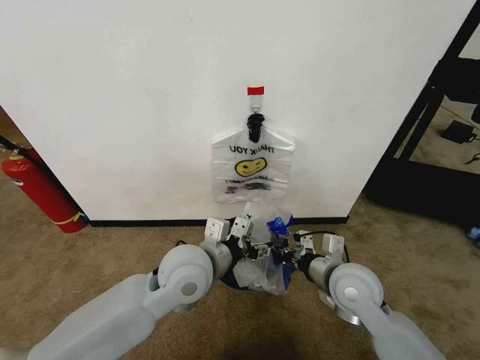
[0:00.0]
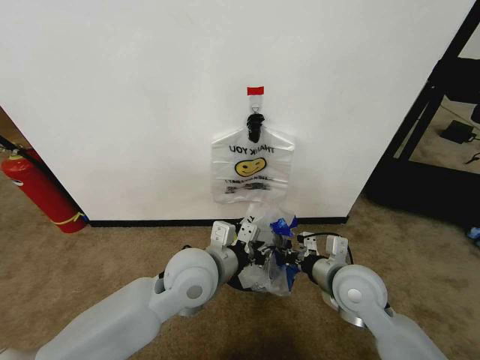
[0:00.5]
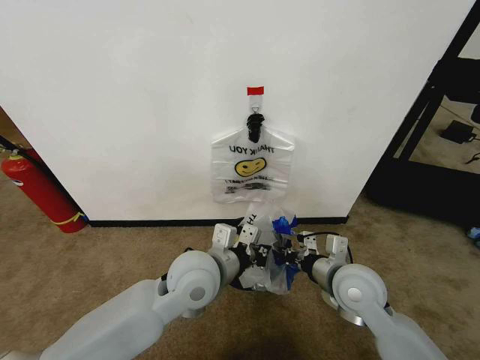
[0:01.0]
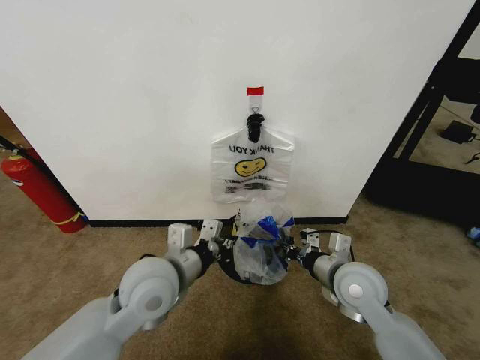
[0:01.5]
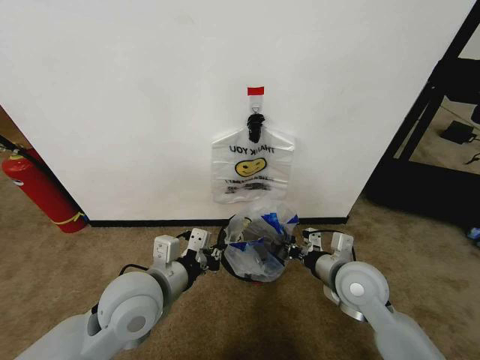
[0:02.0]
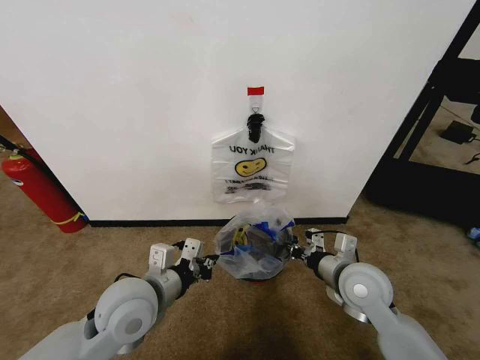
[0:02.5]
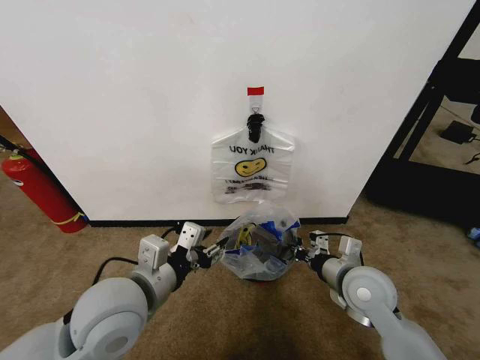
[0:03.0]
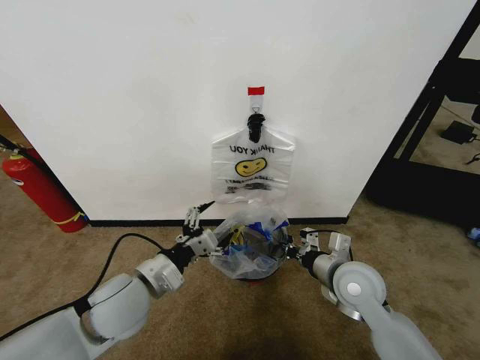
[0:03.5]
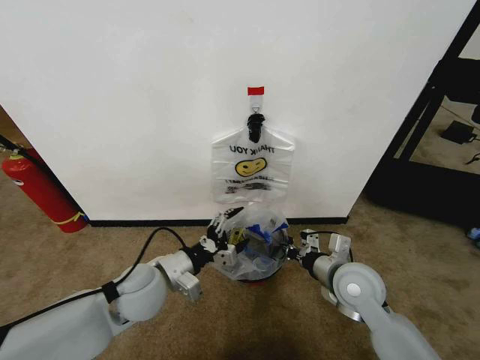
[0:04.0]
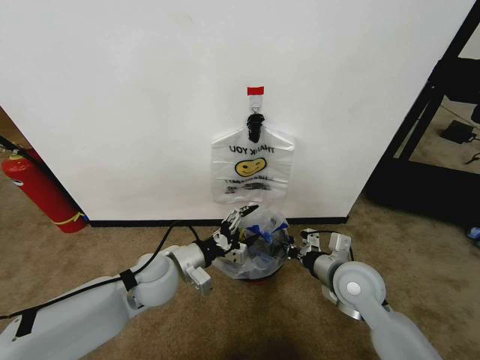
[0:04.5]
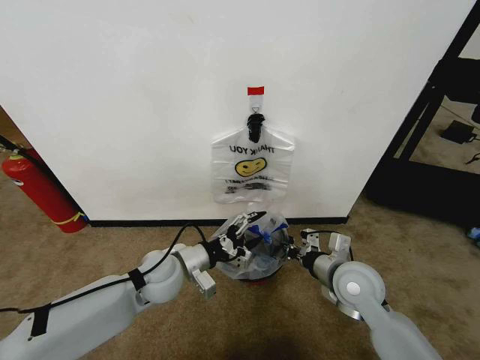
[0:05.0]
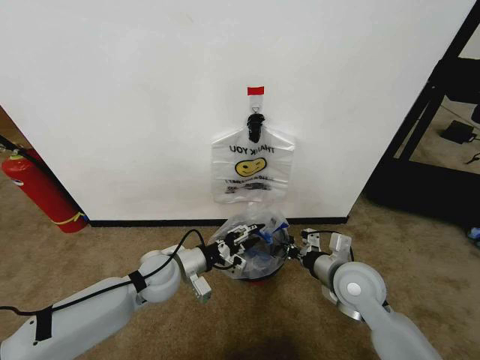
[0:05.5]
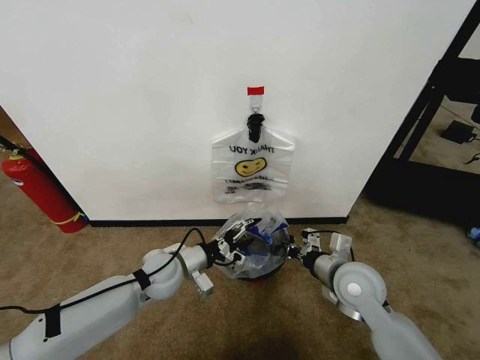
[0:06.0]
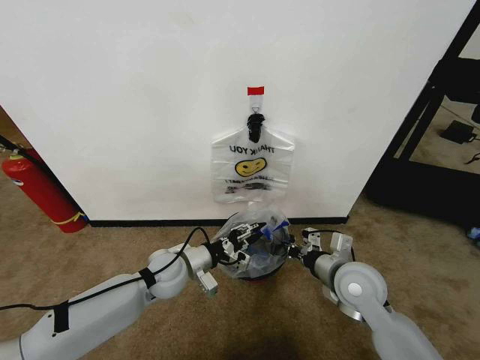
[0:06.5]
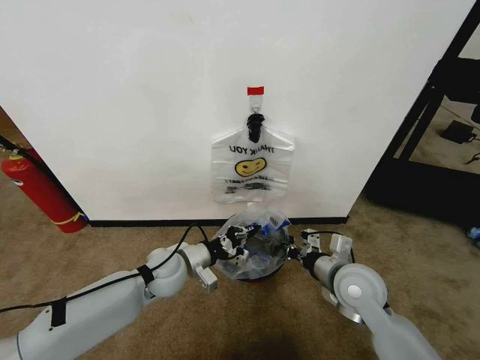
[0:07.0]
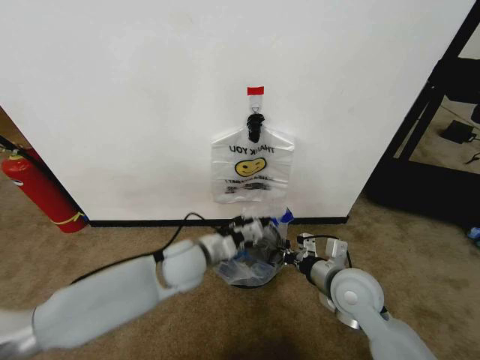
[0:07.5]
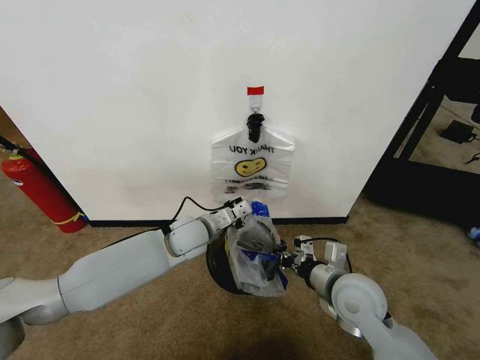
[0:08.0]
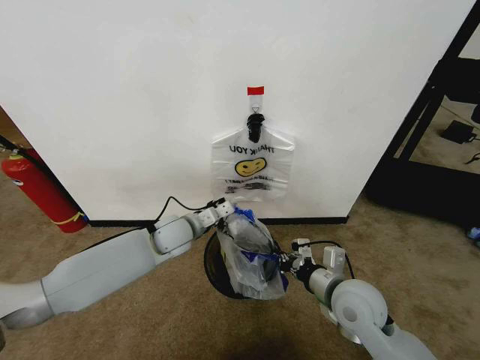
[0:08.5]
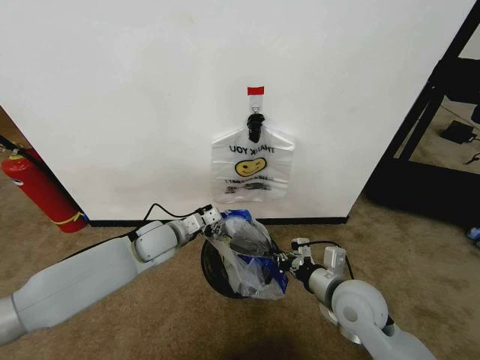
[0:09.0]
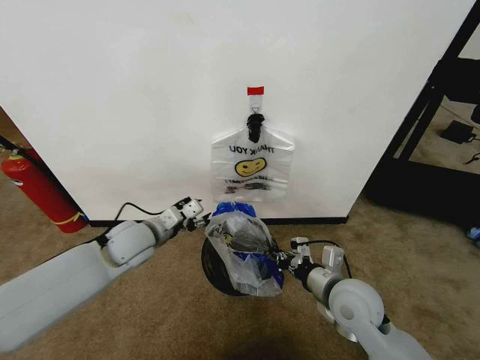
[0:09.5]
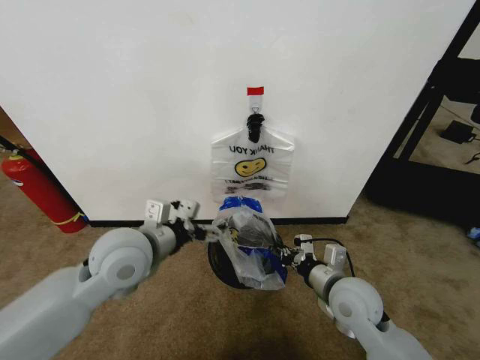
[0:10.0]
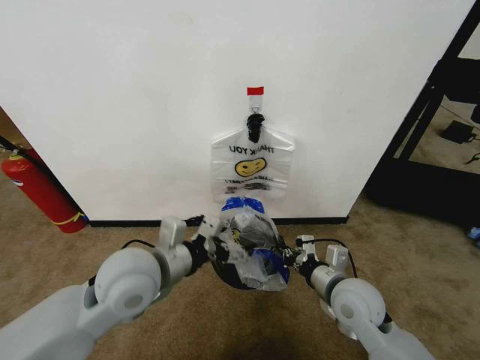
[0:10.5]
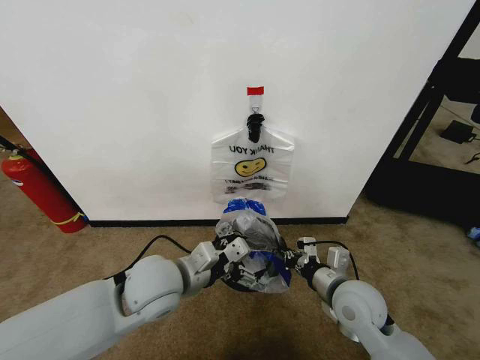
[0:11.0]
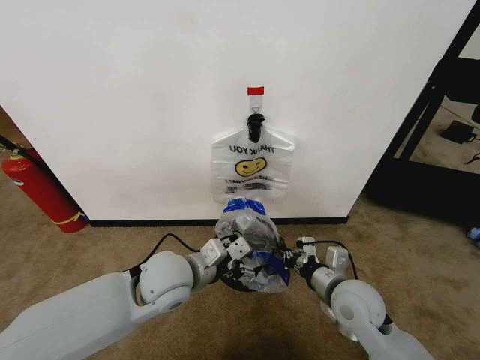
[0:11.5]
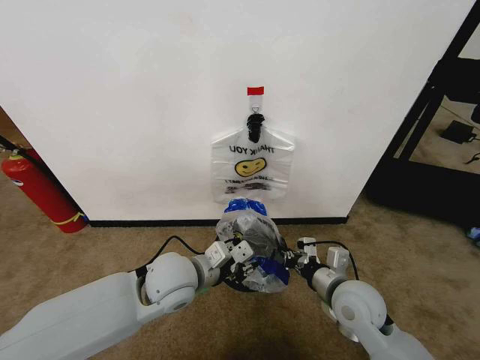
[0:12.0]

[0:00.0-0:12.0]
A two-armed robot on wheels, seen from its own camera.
Task of the whole recording: Pick up the garbage bag from the wall and place it over the trash bin.
0:00.0 to 0:02.0: The left gripper moves to the left and backward, about 10 cm, and closes its fingers.
0:02.0 to 0:04.0: The left gripper is displaced downward by approximately 5 cm, and opens up.
0:04.0 to 0:06.0: The left gripper shifts roughly 5 cm forward.
0:06.0 to 0:08.0: The left gripper is displaced forward and to the right by approximately 10 cm, and closes.
0:08.0 to 0:10.0: The left gripper is displaced backward, upward and to the left by roughly 20 cm, and opens up.
0:10.0 to 0:12.0: The left gripper goes some 10 cm downward and to the right, and closes its fingers.

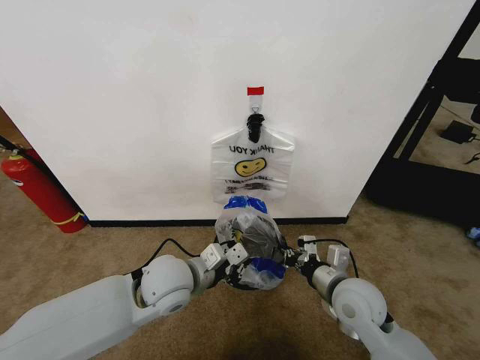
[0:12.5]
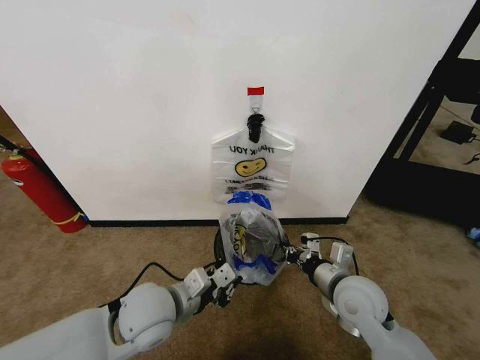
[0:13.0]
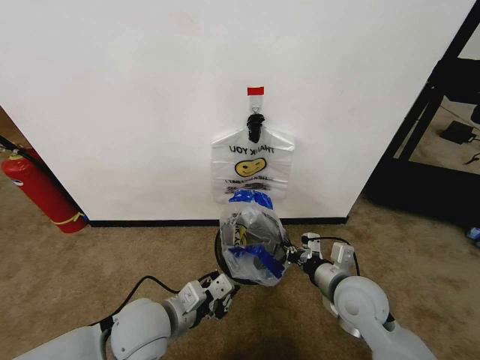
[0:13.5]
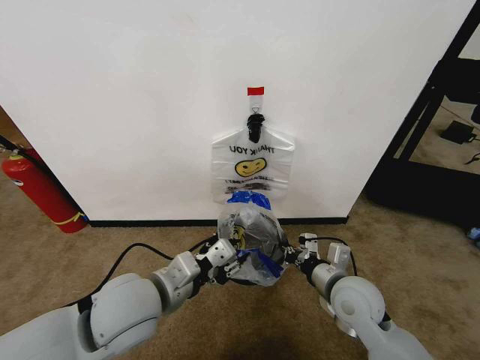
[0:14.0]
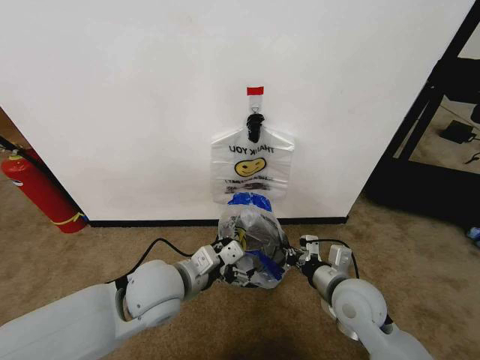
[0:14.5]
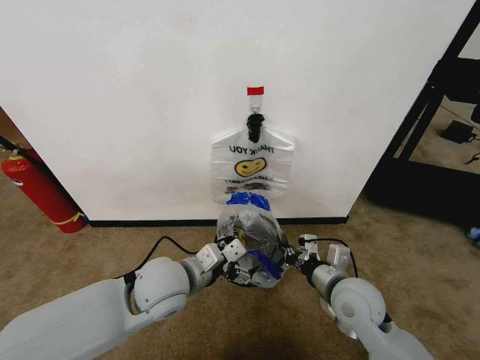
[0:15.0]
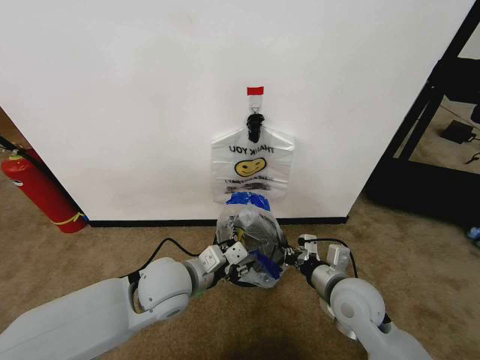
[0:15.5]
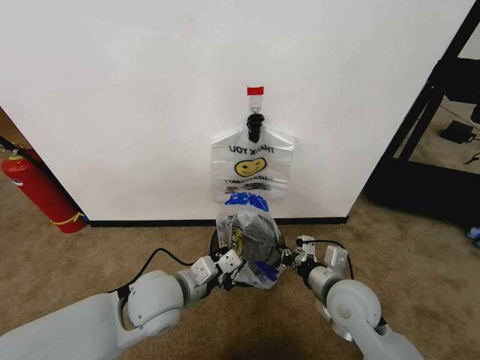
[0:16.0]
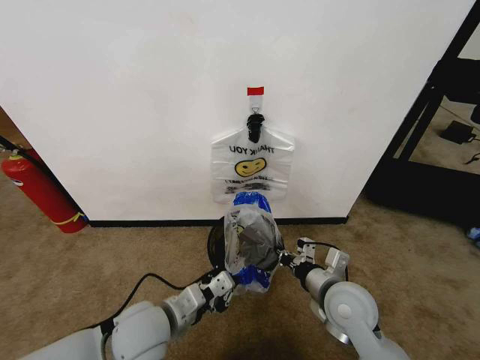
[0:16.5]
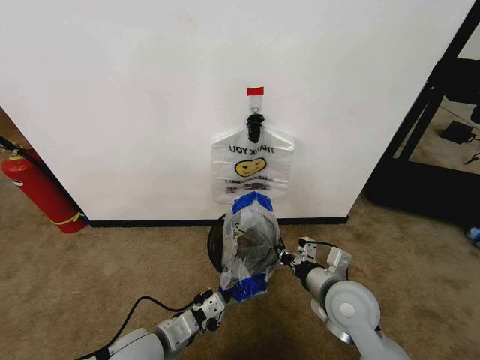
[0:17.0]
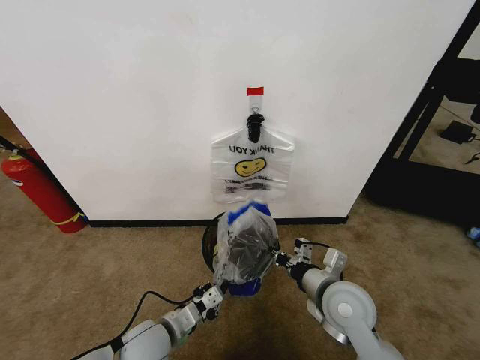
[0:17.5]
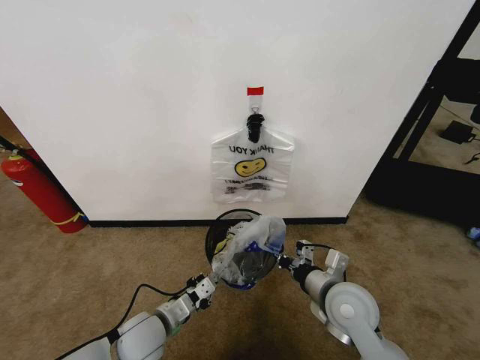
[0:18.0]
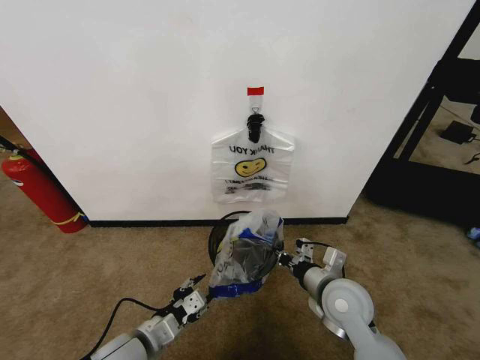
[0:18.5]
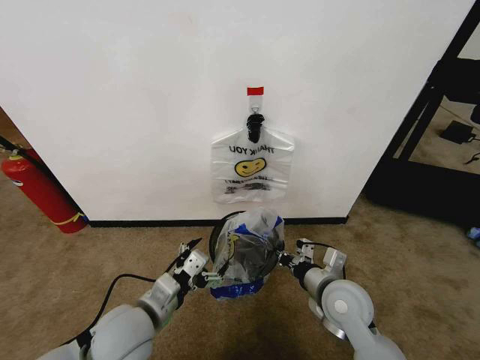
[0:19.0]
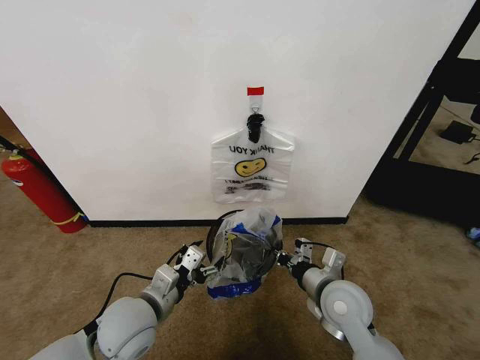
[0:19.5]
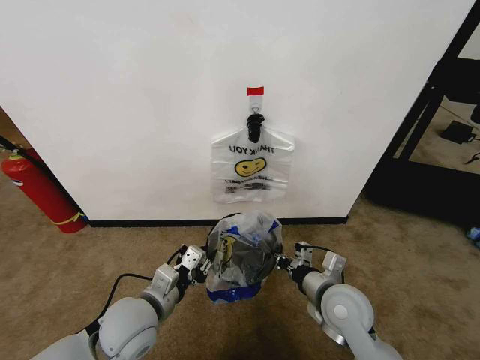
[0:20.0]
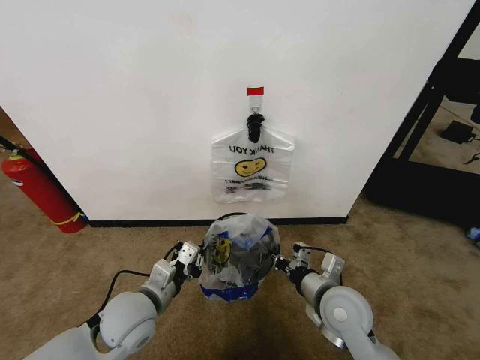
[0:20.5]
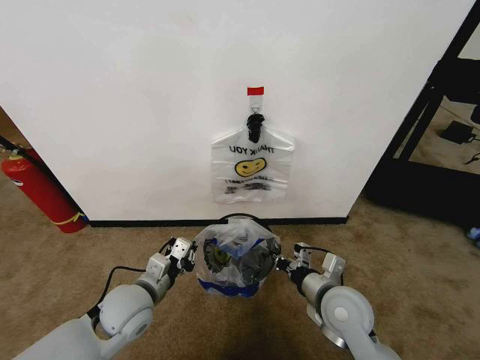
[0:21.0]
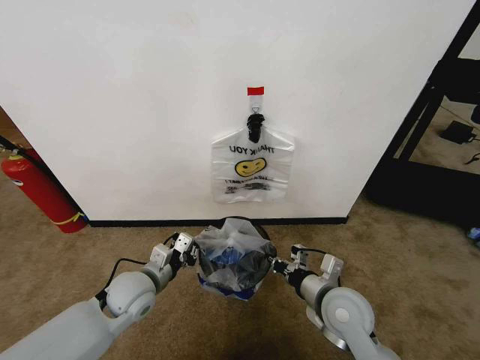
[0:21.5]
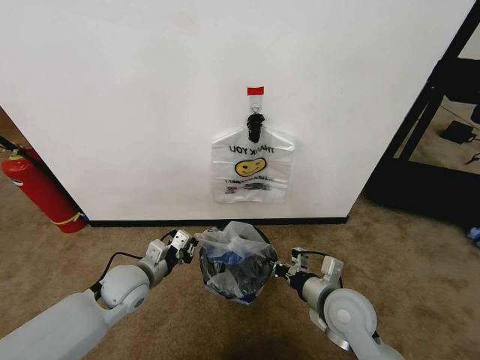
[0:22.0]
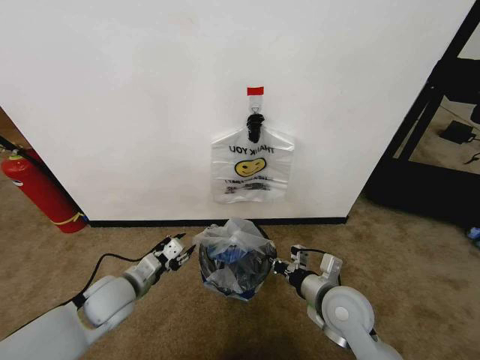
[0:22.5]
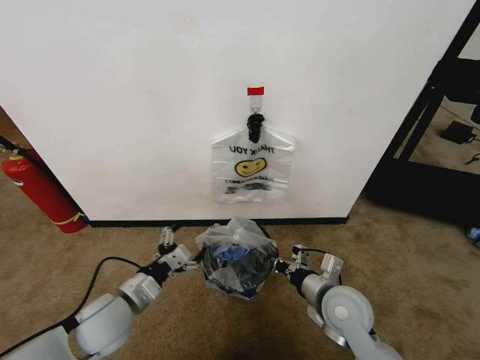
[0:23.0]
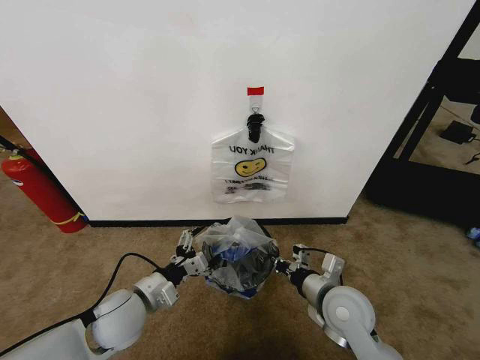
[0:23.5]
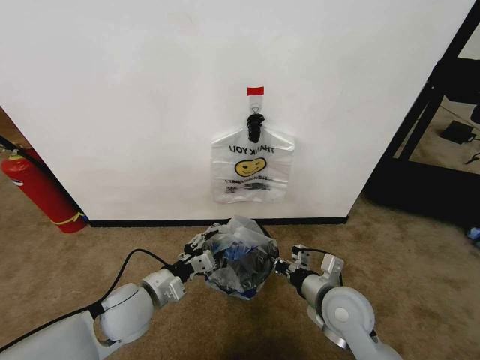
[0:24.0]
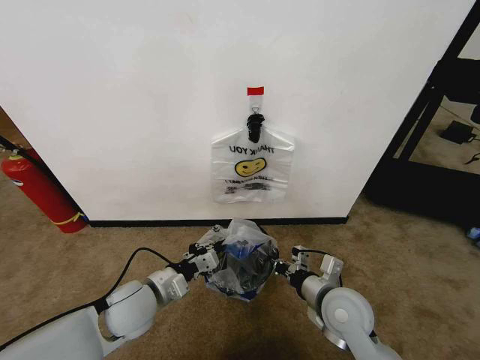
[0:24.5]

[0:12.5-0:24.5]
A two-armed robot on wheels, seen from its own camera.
Task of the whole recording: Pick up the garbage bag from the wall and place it over the trash bin.
0:12.5 to 0:14.5: The left gripper opens up.
0:14.5 to 0:16.5: The left gripper goes approximately 10 cm downward and backward, and closes its fingers.
0:16.5 to 0:18.5: The left gripper goes about 5 cm downward, and opens its fingers.
0:18.5 to 0:20.5: The left gripper heads forward and upward, covering some 10 cm, and closes.
0:20.5 to 0:22.5: The left gripper goes roughly 5 cm to the left, and opens up.
0:22.5 to 0:24.5: The left gripper shifts approximately 5 cm to the right, and closes up.

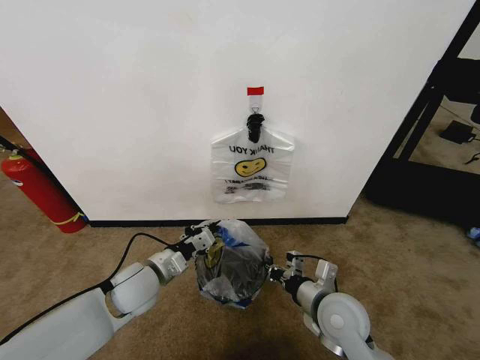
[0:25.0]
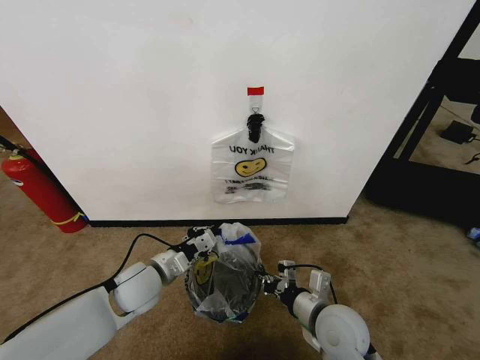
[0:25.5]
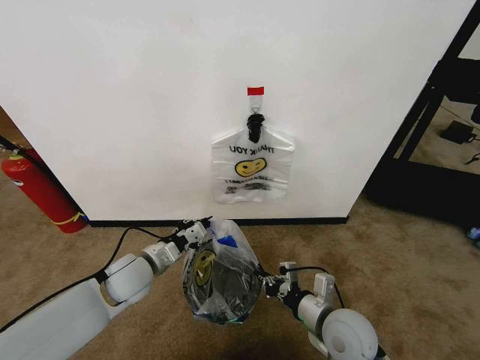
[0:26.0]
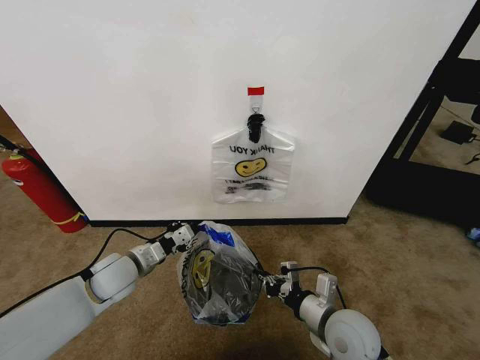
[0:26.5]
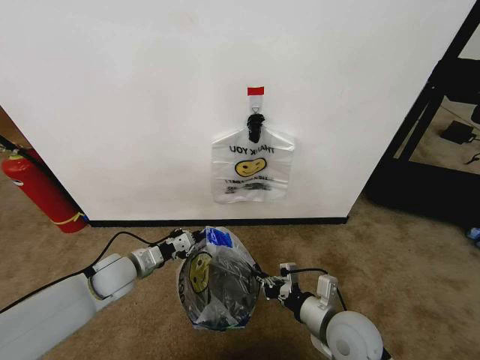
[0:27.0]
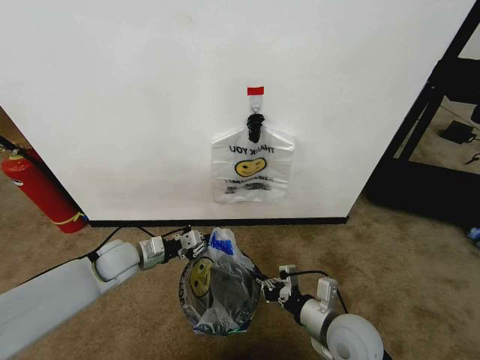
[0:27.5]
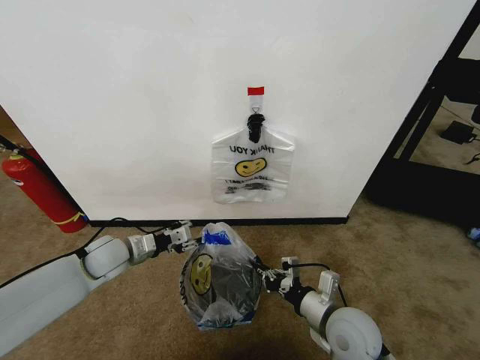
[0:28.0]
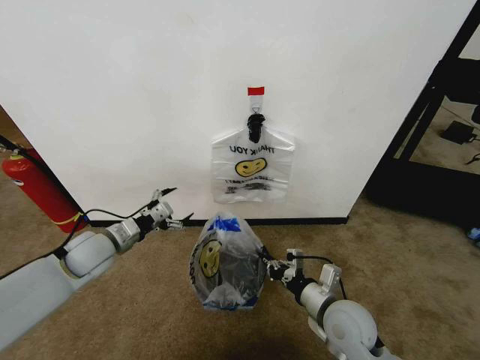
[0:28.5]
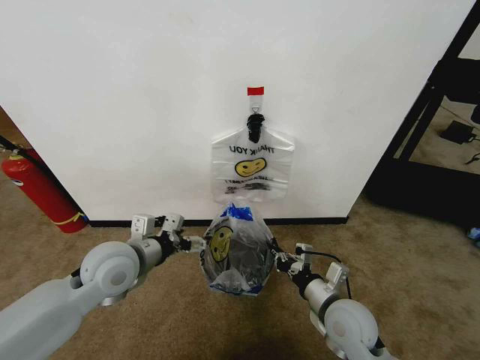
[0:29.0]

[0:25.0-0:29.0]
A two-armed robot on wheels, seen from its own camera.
Task of the whole recording: Pick up the garbage bag from the wall and place it over the trash bin.
0:25.0 to 0:27.0: The left gripper goes roughly 5 cm to the left.
0:27.0 to 0:29.0: The left gripper heads upward and to the right, covering some 15 cm, and opens up.
